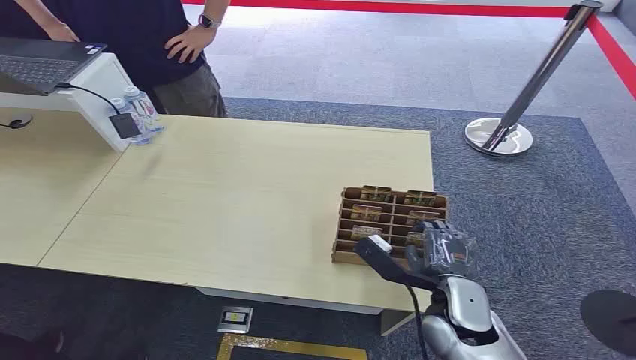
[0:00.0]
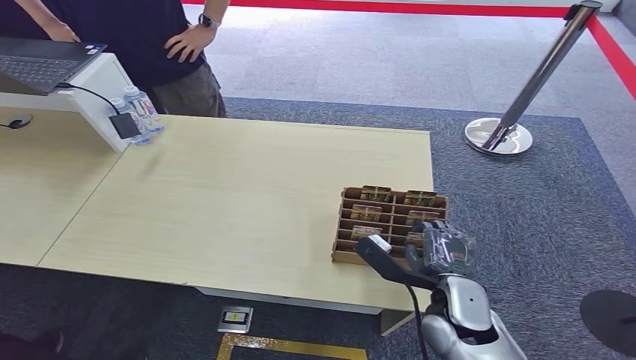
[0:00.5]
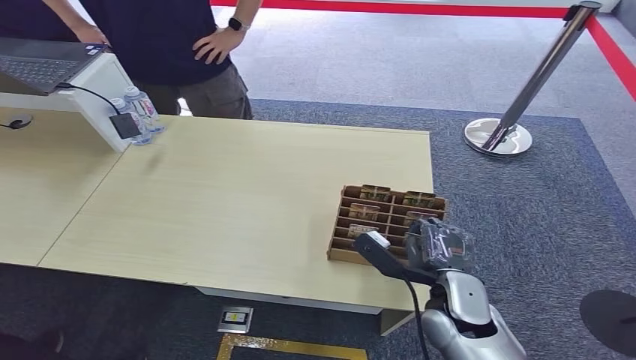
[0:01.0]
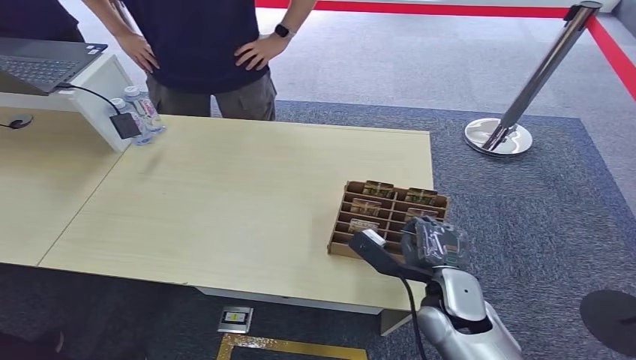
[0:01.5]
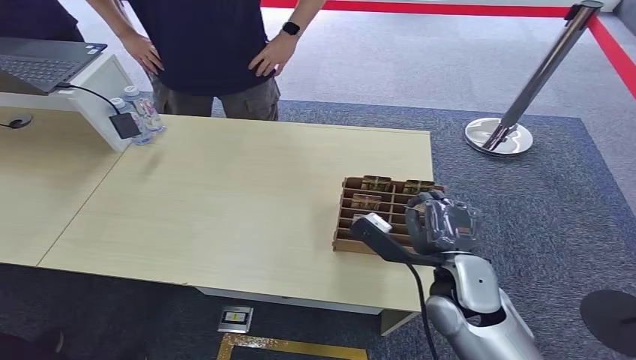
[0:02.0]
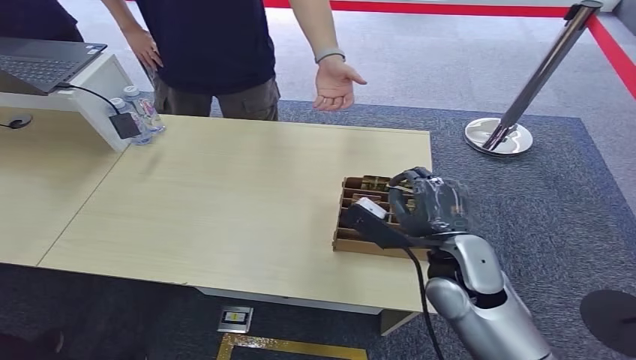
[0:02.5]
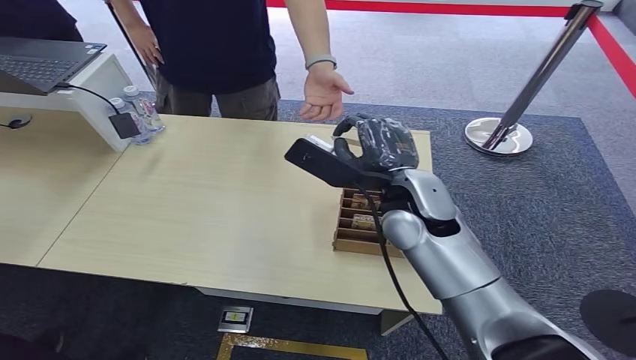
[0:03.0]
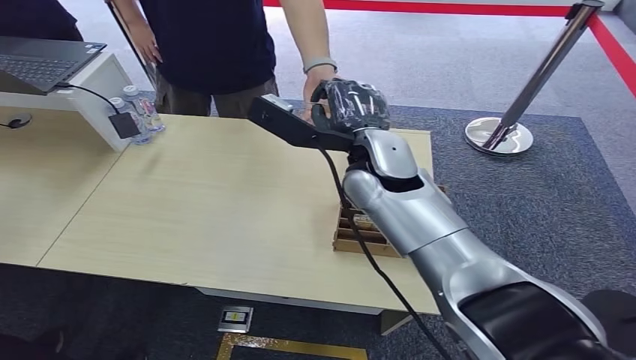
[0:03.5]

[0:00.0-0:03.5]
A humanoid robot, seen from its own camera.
Step, 0:00.0 to 0:01.5: Pick up the room card from the card holder.
Step, 0:02.0 to 0:03.5: Hand the room card to the target.
0:02.0 to 0:03.5: The right hand goes roughly 25 cm upward, forward and to the left.
